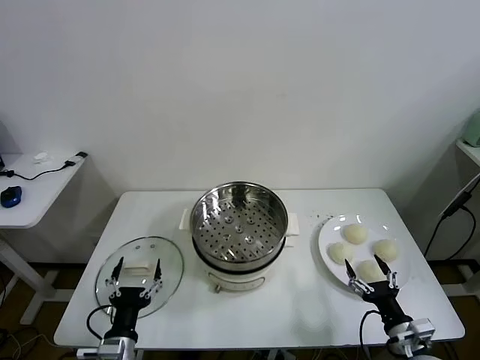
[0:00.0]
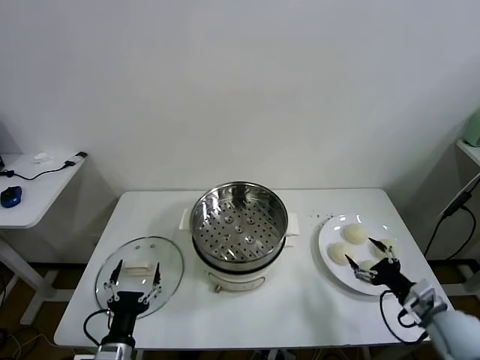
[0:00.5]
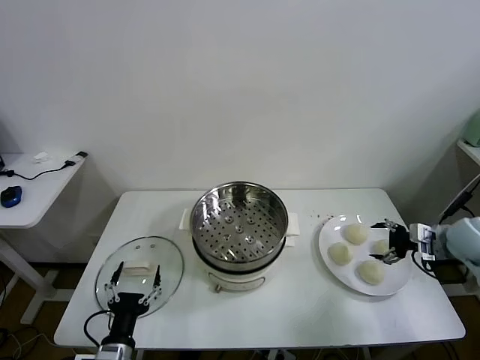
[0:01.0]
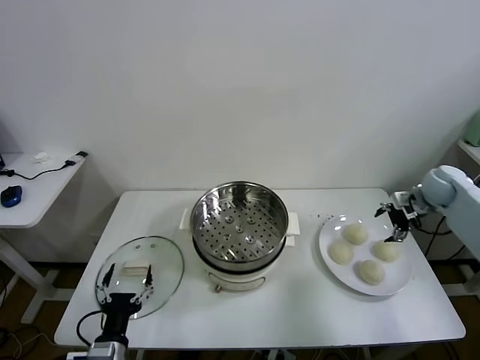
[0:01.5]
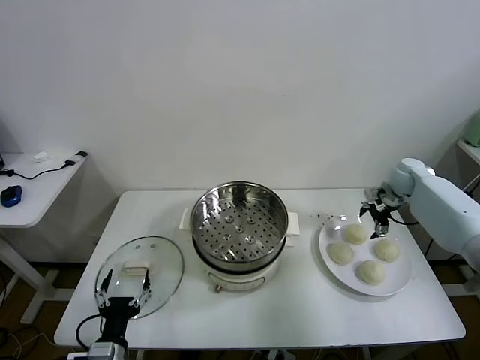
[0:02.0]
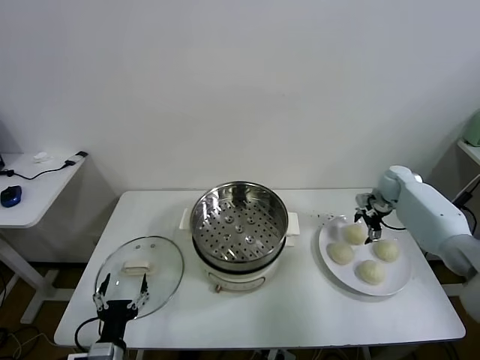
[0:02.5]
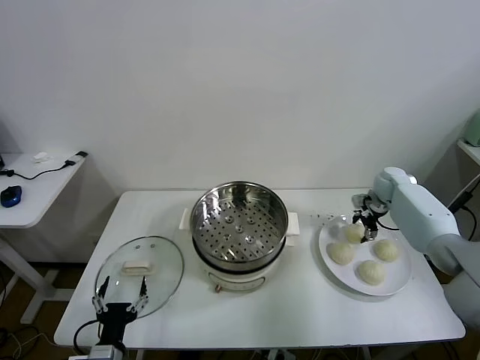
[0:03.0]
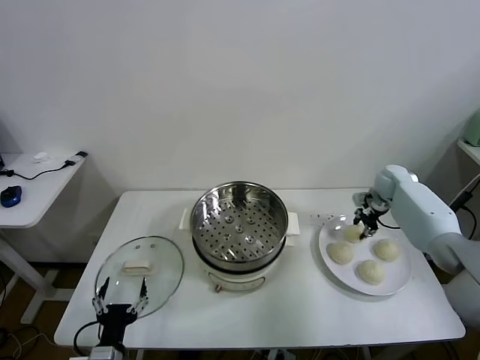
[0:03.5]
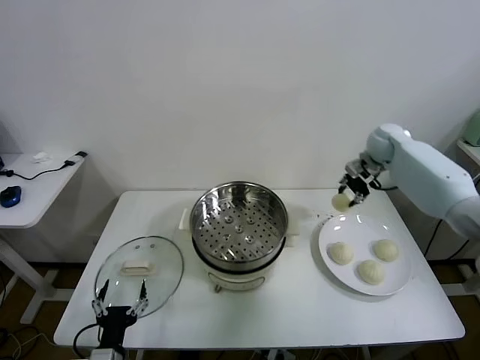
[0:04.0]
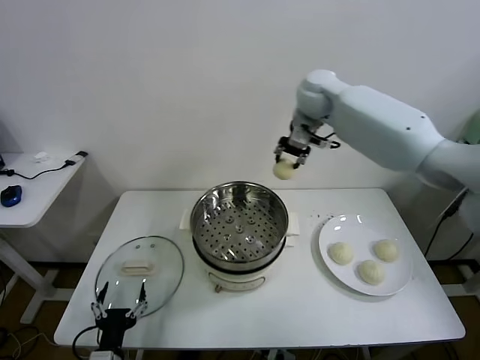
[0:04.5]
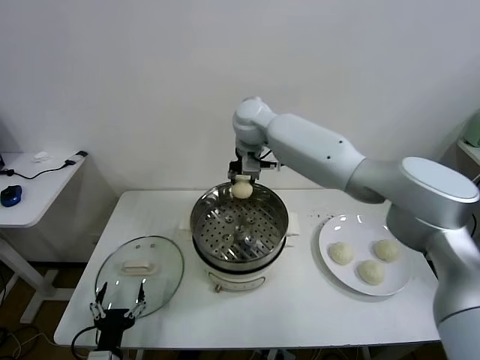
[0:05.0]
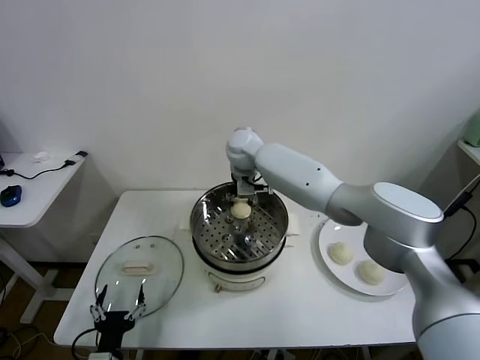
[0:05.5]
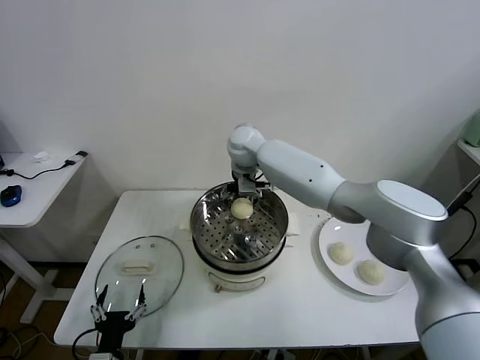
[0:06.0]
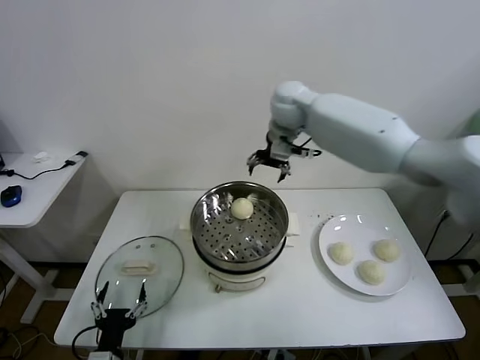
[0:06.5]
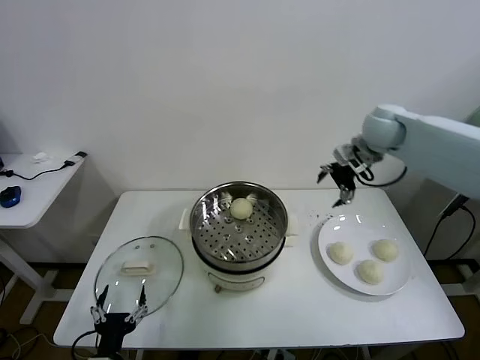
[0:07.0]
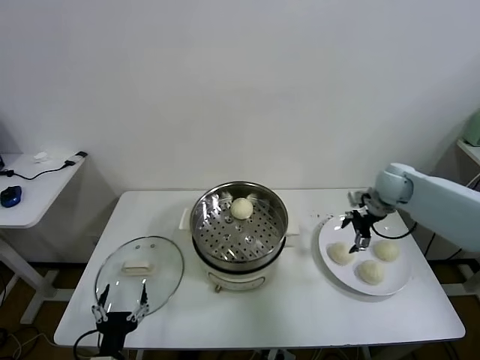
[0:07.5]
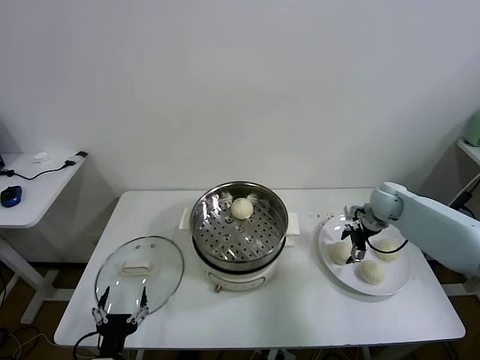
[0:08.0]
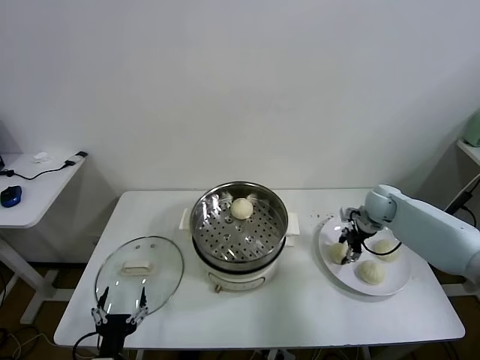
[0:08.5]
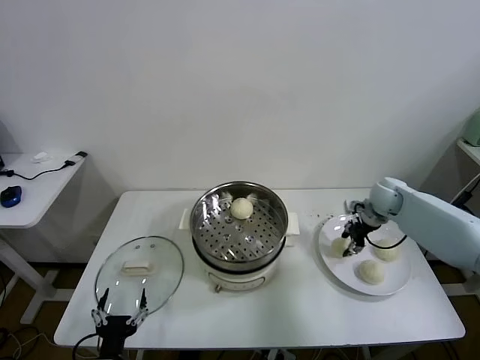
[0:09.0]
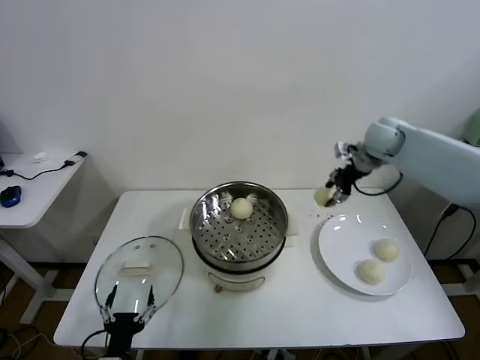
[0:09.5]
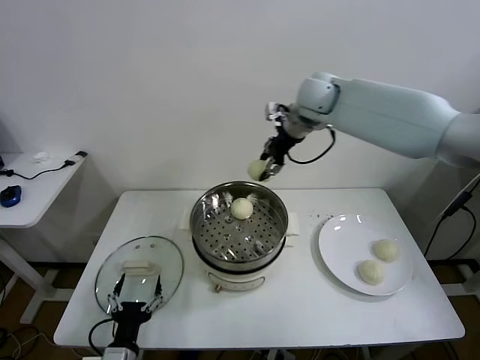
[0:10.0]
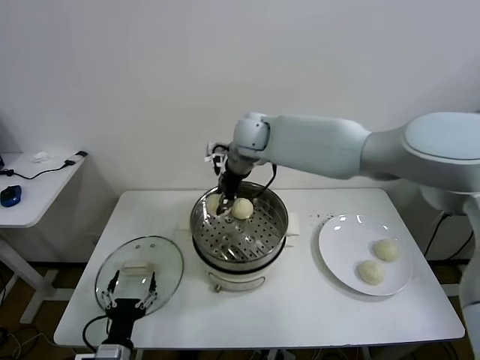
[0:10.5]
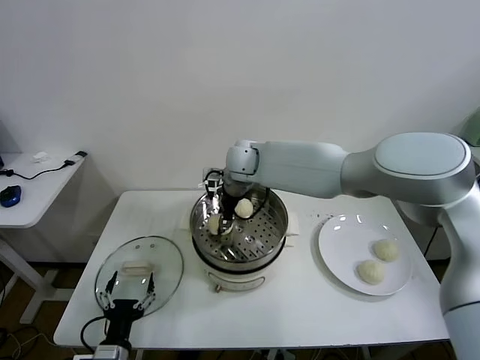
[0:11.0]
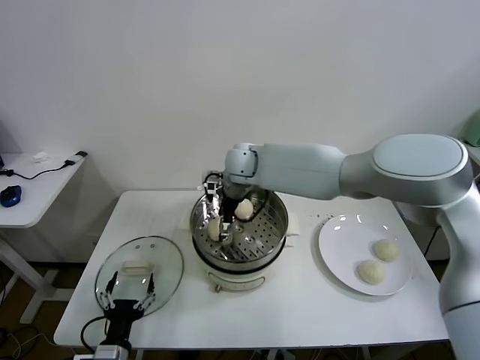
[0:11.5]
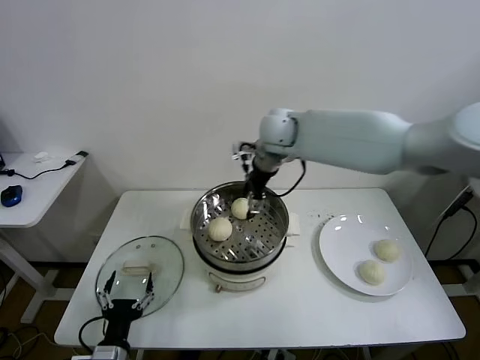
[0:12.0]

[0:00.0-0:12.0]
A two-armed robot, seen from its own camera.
Task of the whole recording: take steamed baozi put them in steamer.
Step, 0:00.0 to 0:03.0: Grasp the baozi in the plate with right gripper.
Step, 0:03.5 to 0:06.0: Place the baozi on the steamer with right gripper.
Step, 0:06.5 to 0:08.0: Grasp the baozi in the plate with right gripper.
Step, 0:08.5 to 0:11.5: Place the baozi on the steamer with right gripper.
0:02.0 to 0:04.0: The right gripper shifts some 15 cm upward and to the left, and closes its fingers.
0:04.0 to 0:06.0: The right gripper moves to the left, roughly 30 cm, and opens up.
0:06.0 to 0:08.0: The right gripper heads to the right and downward, covering about 40 cm.
0:08.0 to 0:10.0: The right gripper moves upward and to the left, roughly 35 cm, and closes up.
0:10.0 to 0:12.0: The right gripper moves approximately 15 cm downward and comes back, and opens.

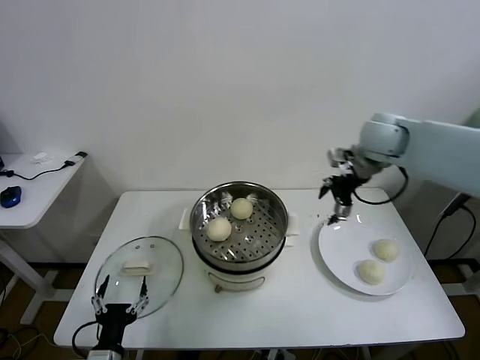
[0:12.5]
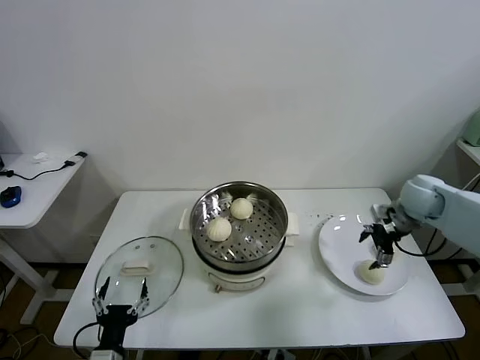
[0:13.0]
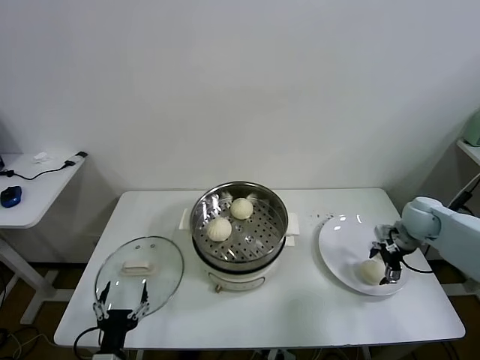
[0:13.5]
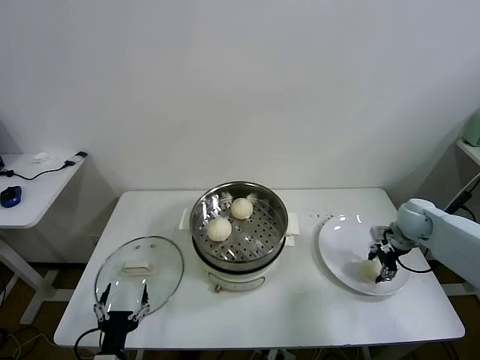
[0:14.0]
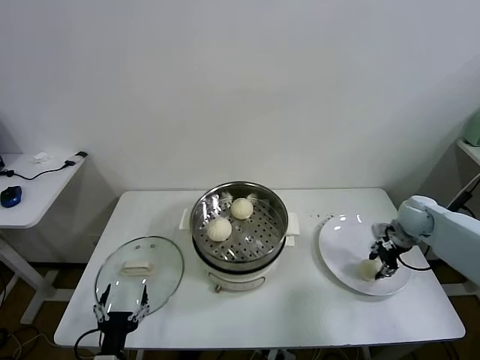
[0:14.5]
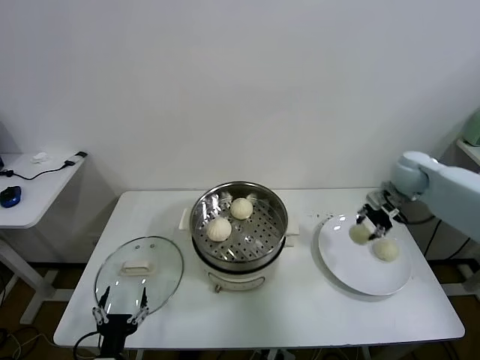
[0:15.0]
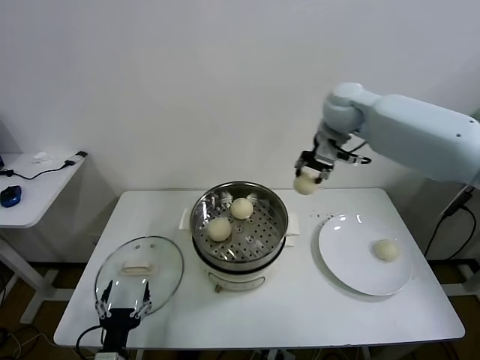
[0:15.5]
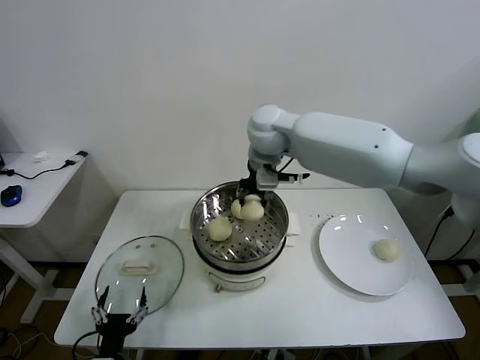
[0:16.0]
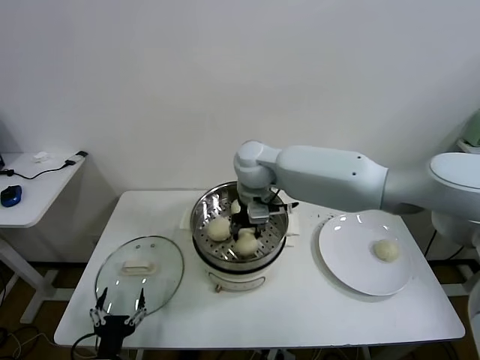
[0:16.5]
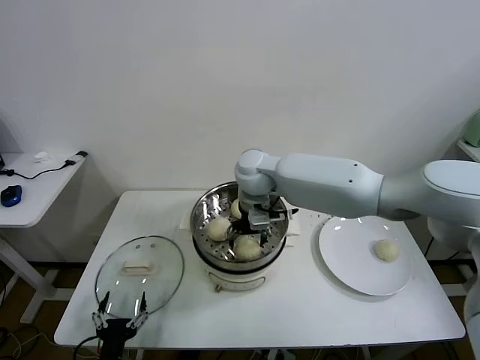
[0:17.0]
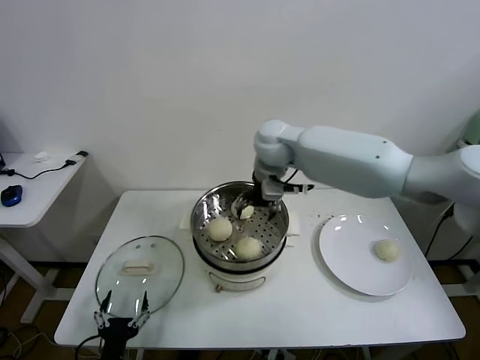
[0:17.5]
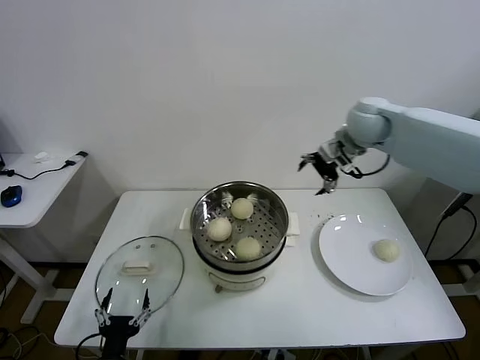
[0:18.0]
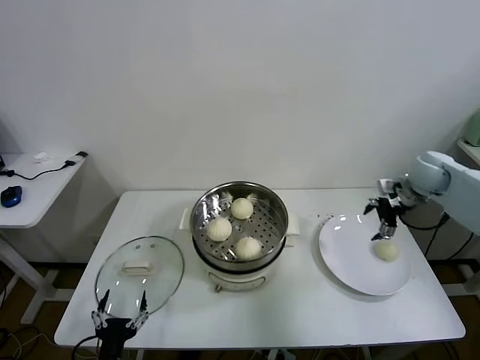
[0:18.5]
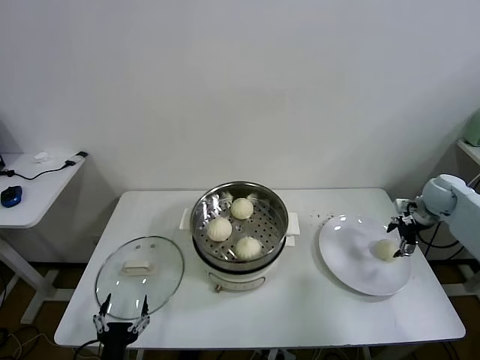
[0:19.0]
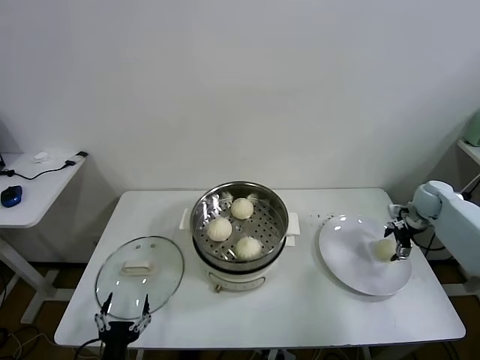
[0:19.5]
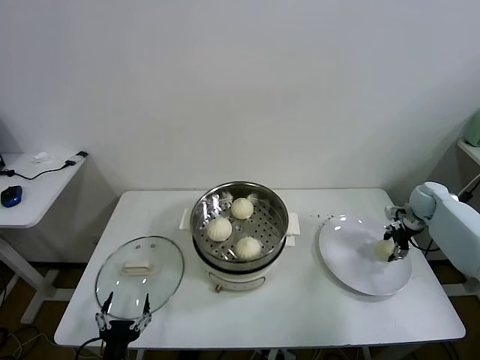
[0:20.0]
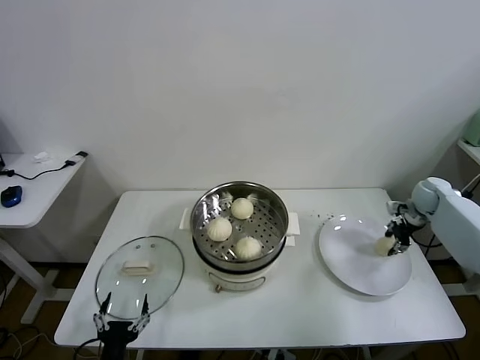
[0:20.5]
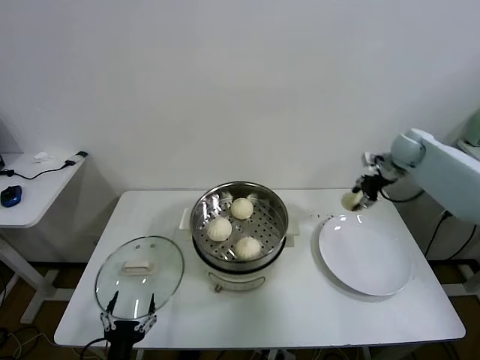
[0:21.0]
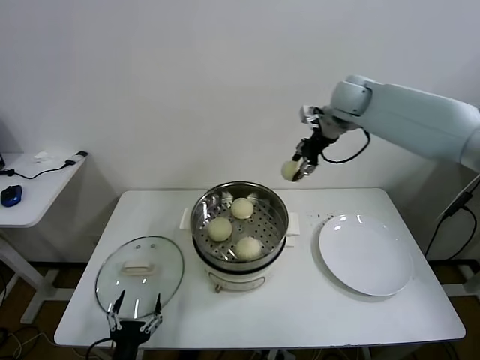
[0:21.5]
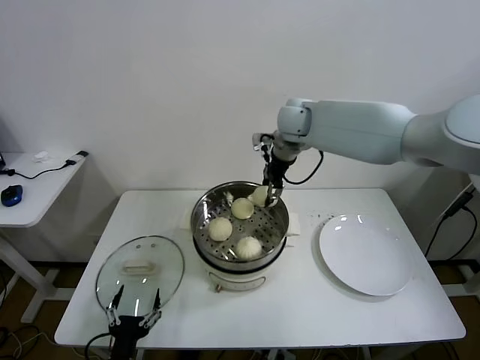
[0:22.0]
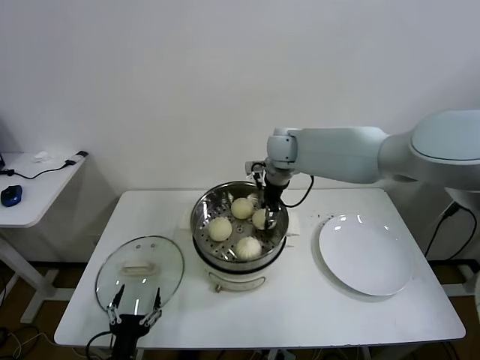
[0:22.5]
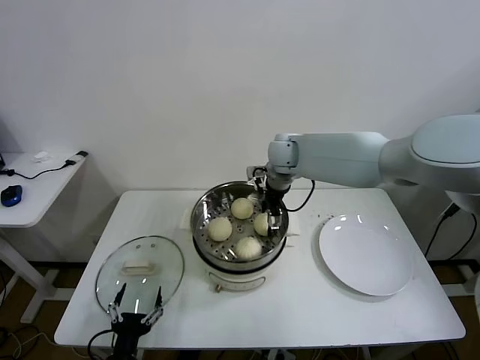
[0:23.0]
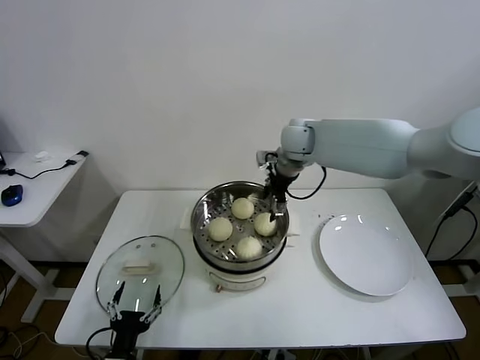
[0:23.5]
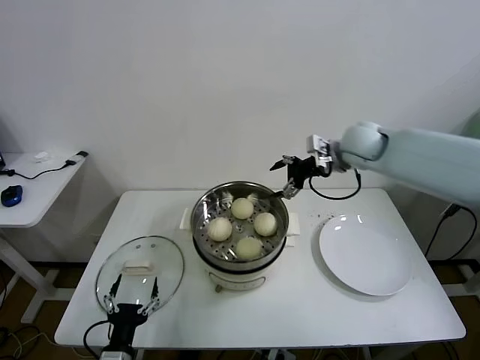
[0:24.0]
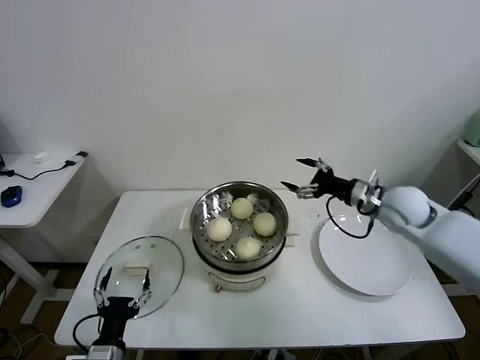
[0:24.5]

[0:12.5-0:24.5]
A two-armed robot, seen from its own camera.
Task of the whole recording: take steamed baozi put them in steamer.
Step, 0:12.5 to 0:14.0: Grasp the baozi in the plate with right gripper.
Step, 0:14.5 to 0:17.0: Place the baozi on the steamer with right gripper.
Step, 0:17.5 to 0:20.0: Grasp the baozi in the plate with right gripper.
Step, 0:20.5 to 0:23.0: Place the baozi on the steamer with right gripper.
0:12.5 to 0:14.5: The right gripper moves downward and to the right, roughly 25 cm, and closes.
0:14.5 to 0:16.5: The right gripper moves to the left, some 40 cm.
0:16.5 to 0:18.5: The right gripper moves to the right, approximately 40 cm, and opens up.
0:18.5 to 0:20.5: The right gripper travels downward and to the right by about 10 cm, and closes.
0:20.5 to 0:22.5: The right gripper is displaced to the left by roughly 40 cm.
0:22.5 to 0:24.5: The right gripper goes roughly 30 cm to the right and backward, and opens.

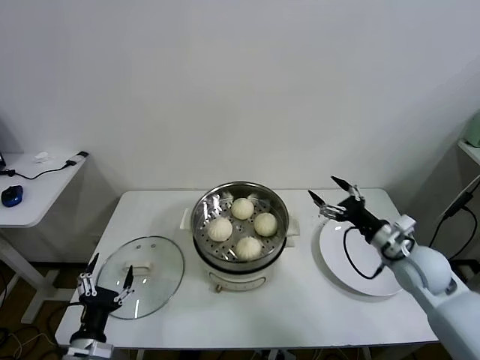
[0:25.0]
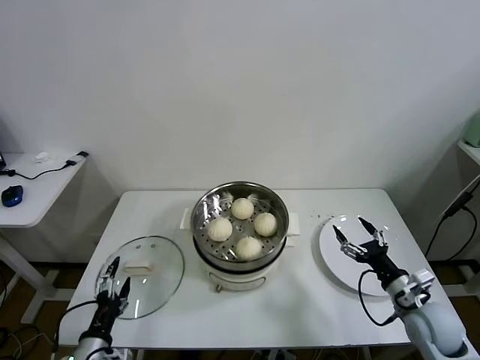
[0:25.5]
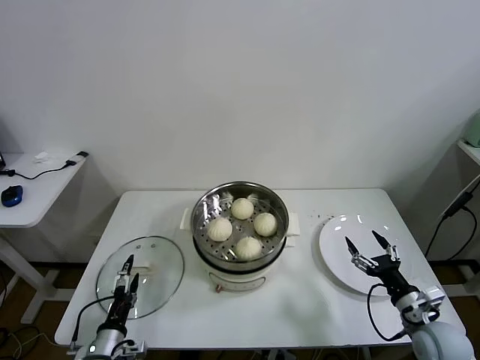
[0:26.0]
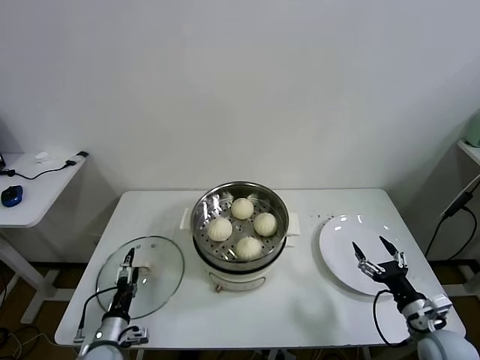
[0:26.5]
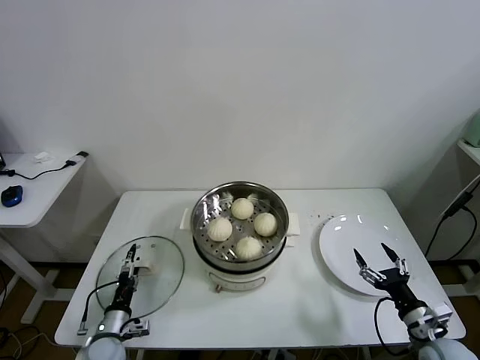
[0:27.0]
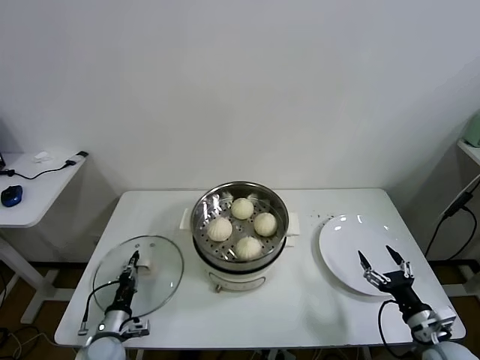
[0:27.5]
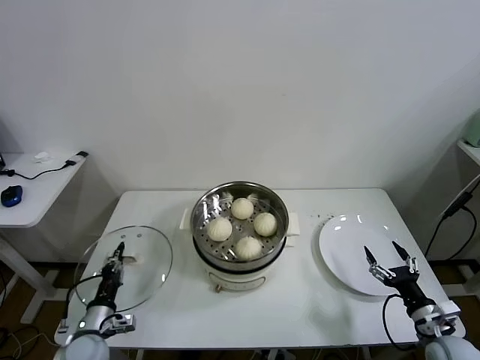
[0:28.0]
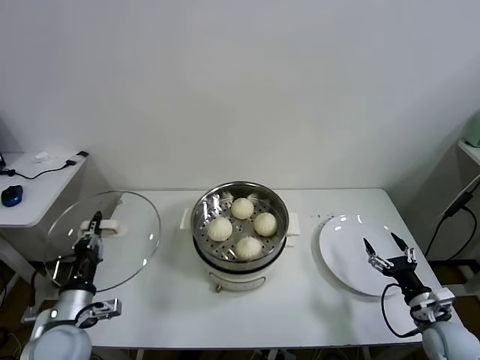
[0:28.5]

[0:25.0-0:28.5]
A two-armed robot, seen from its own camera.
Task of the whole recording: take steamed baozi put them in steamer.
Step, 0:25.0 to 0:27.5: Grasp the pot lid with left gripper.
0:25.0 to 0:27.0: The right gripper is displaced backward and downward by approximately 20 cm; the left gripper moves downward and forward, about 15 cm.
0:27.0 to 0:28.5: The left gripper shifts roughly 15 cm upward, and closes its fingers.
